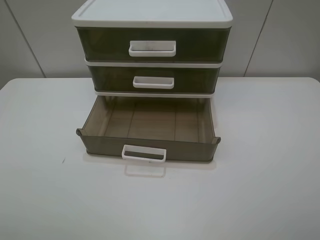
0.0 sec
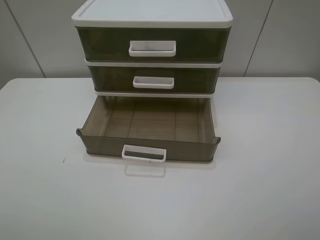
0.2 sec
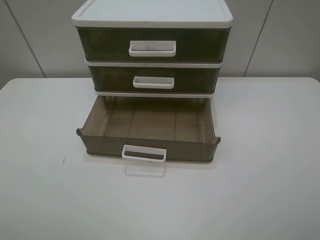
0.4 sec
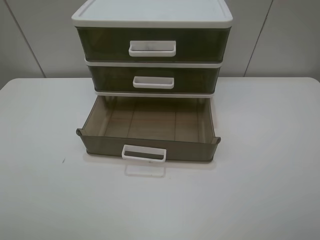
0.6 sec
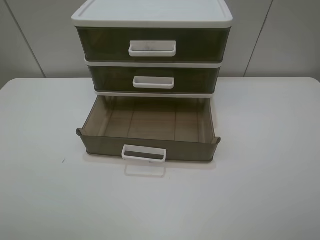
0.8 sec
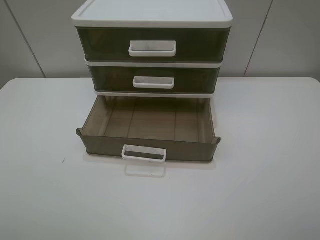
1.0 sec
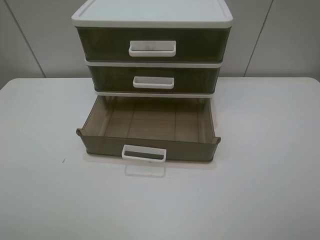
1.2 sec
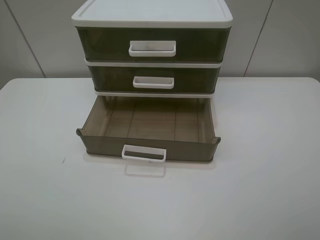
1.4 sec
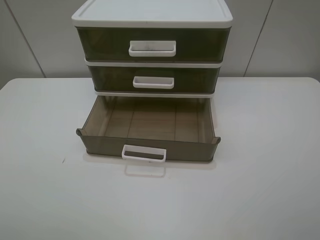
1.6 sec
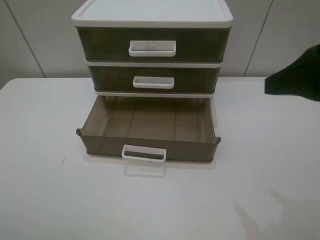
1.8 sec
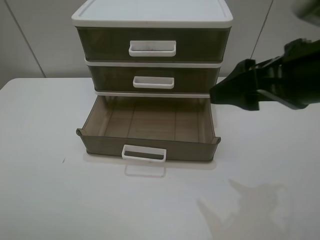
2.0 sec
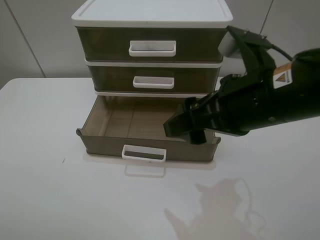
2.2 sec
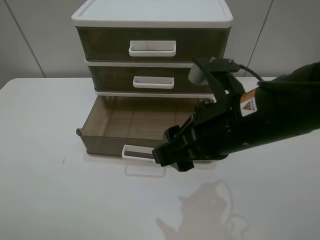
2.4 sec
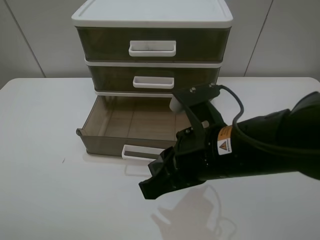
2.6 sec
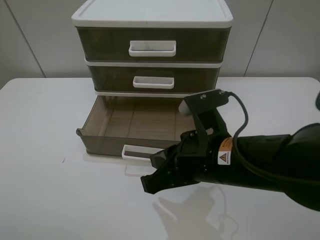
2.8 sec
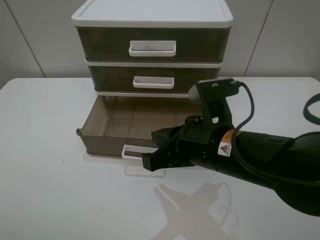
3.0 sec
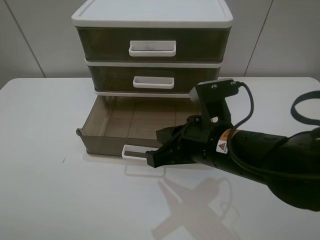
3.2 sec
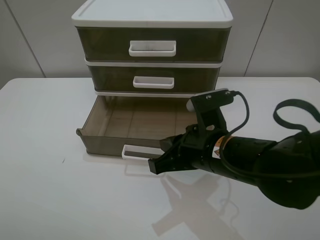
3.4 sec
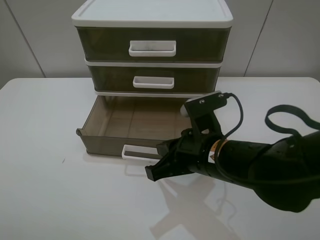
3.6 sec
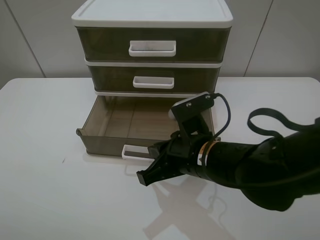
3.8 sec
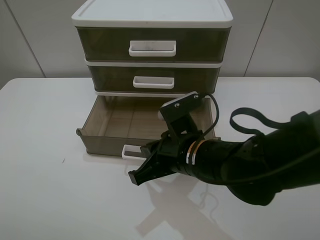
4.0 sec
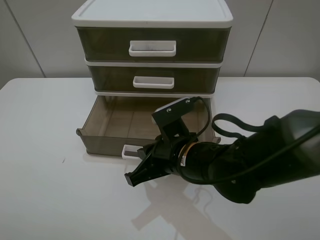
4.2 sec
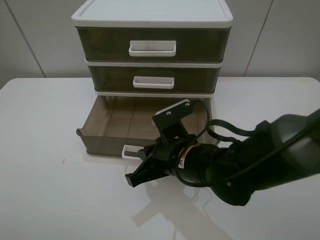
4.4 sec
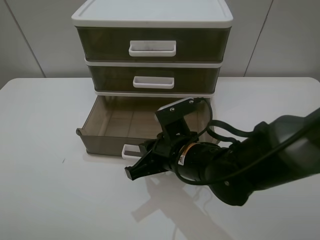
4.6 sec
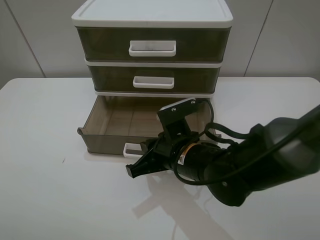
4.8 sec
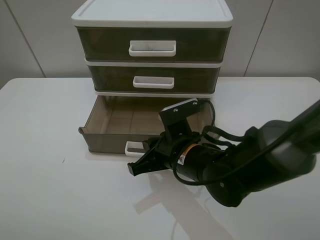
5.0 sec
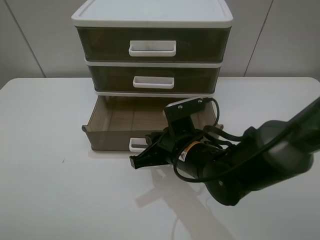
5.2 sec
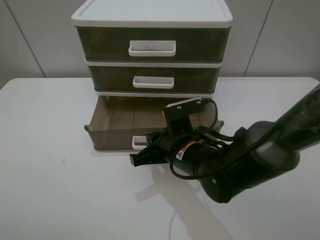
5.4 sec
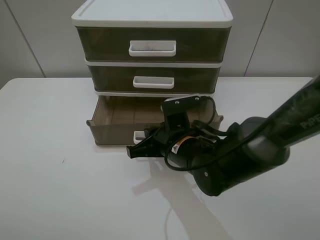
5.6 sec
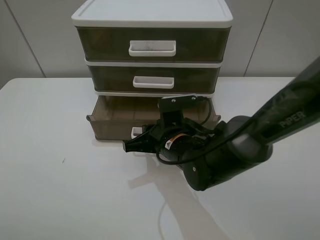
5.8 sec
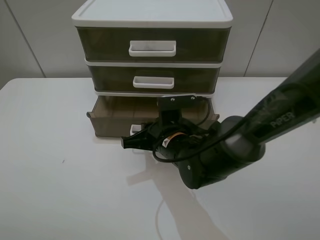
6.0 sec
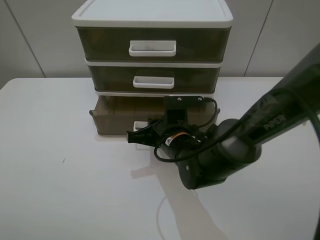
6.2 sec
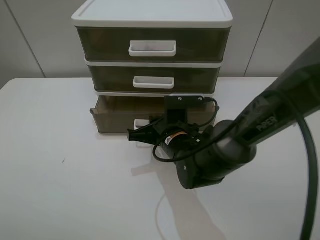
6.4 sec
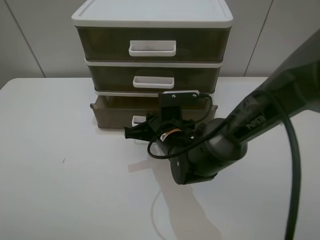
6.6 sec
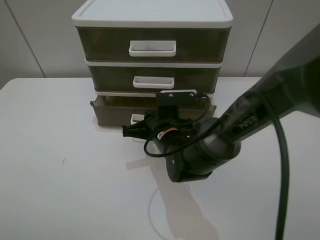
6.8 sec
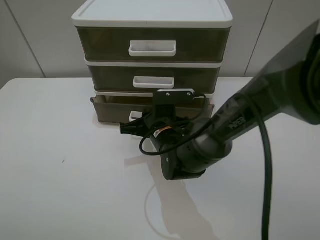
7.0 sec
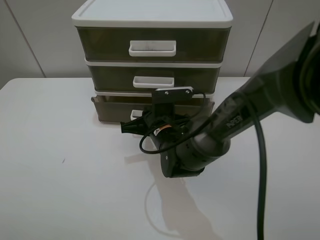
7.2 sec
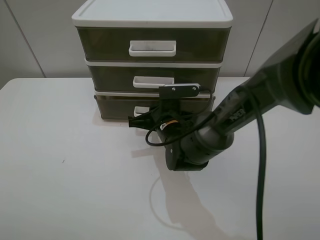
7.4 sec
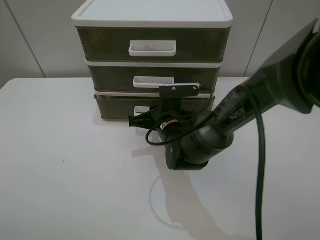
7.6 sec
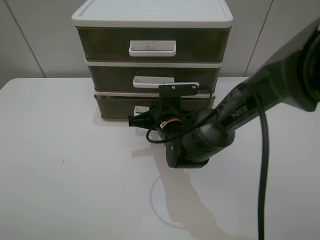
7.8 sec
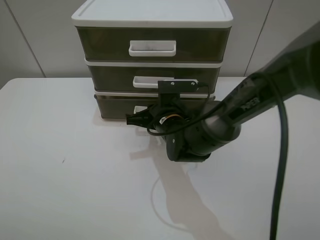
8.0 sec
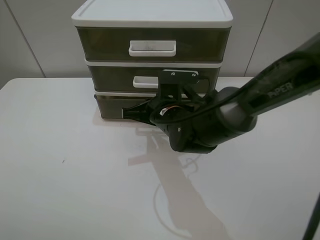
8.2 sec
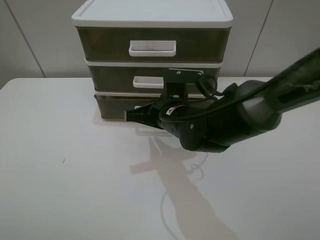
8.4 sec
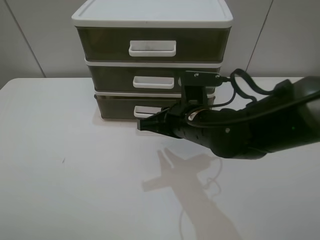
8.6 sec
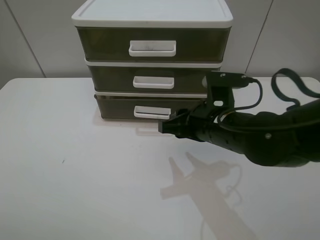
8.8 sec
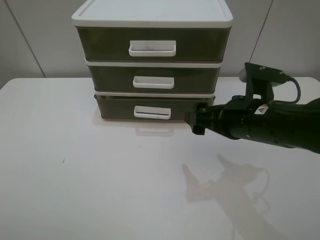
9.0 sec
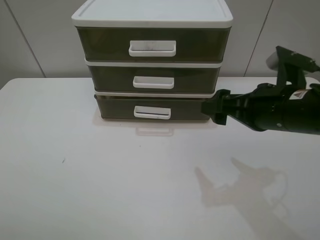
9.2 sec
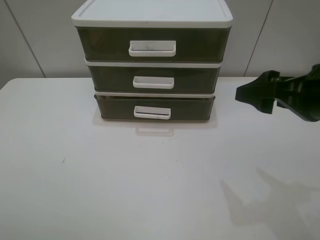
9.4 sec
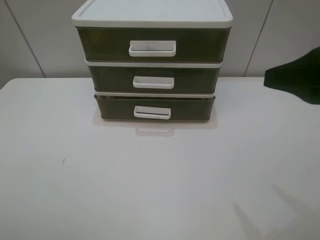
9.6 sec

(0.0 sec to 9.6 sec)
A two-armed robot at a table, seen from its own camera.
Task of the whole recording: close the bottom drawer.
Step, 0.0 sec - 4.6 sec: Use the right gripper to contact the bottom layer of the storage cabinet.
Step, 4.8 sec - 7.8 sec: Push the bottom drawer closed.
1.6 sec - 3.2 sec: The right gripper is displaced to the left, downward and forward by roughly 25 cm, and closes up.
3.2 sec - 4.8 sec: The right gripper moves downward, some 5 cm.
4.8 sec - 6.4 sec: The right gripper moves forward, about 5 cm.
6.4 sec - 8.0 sec: The grippers stay close to where they were, moving slightly.
8.0 sec - 9.6 sec: The right gripper goes about 35 cm to the right, upward and backward, and opens its fingers.
